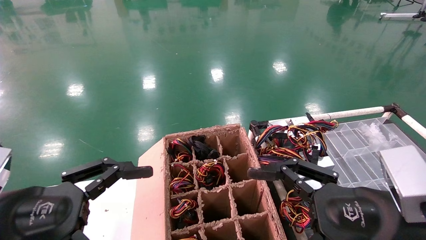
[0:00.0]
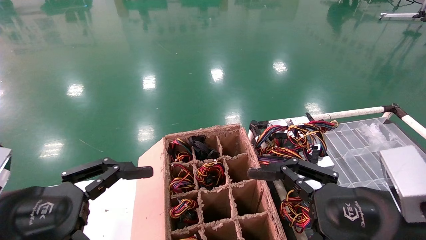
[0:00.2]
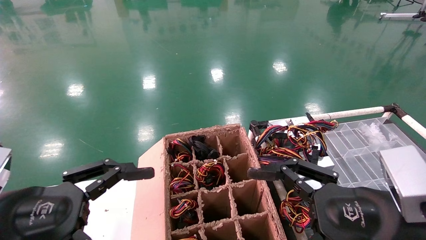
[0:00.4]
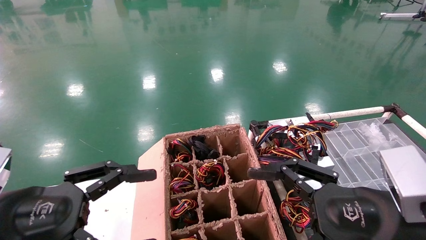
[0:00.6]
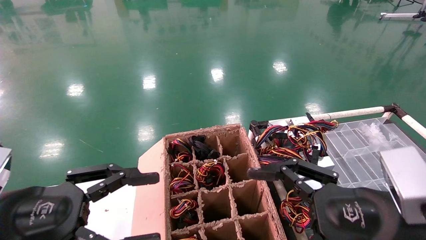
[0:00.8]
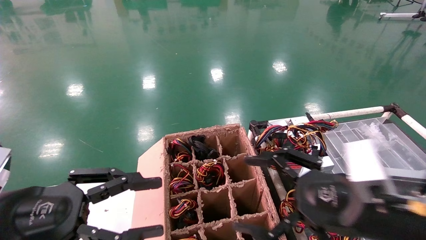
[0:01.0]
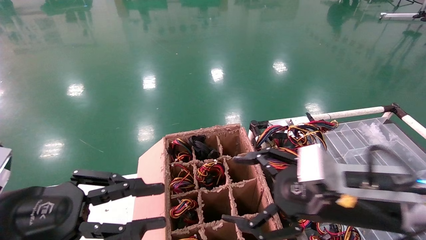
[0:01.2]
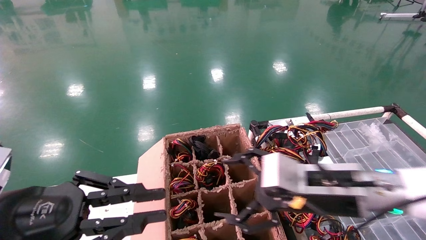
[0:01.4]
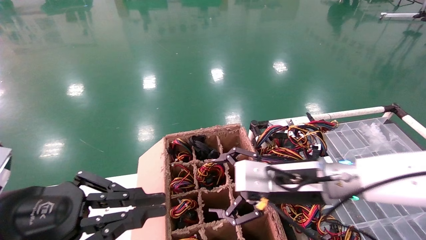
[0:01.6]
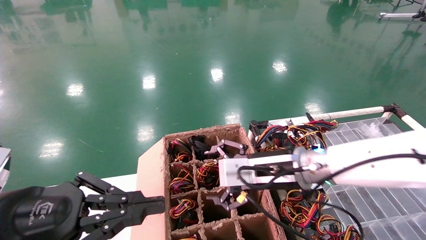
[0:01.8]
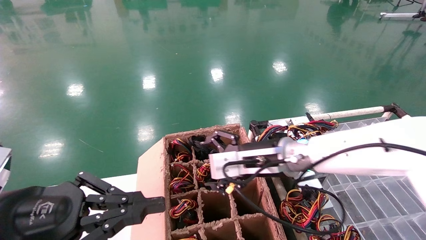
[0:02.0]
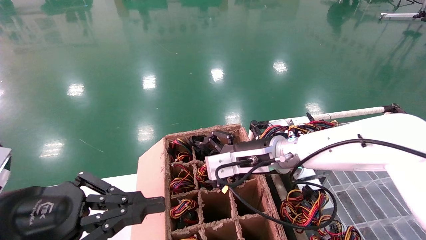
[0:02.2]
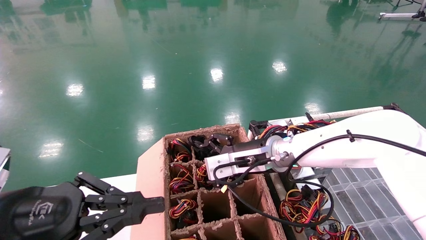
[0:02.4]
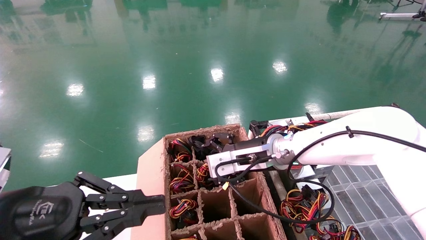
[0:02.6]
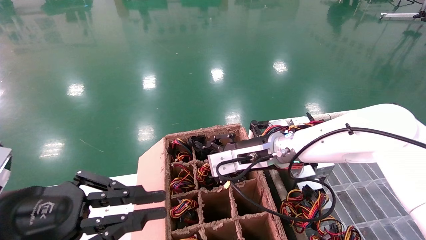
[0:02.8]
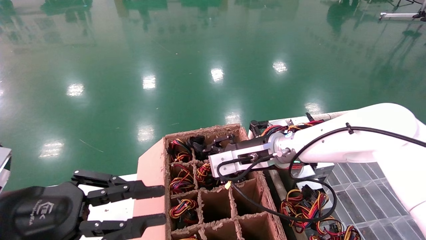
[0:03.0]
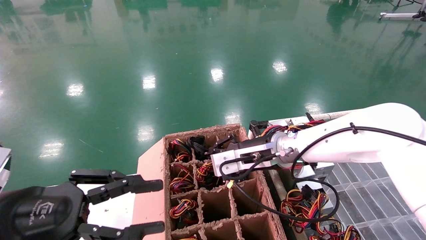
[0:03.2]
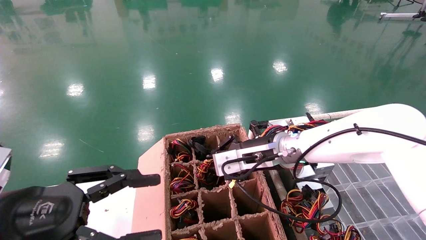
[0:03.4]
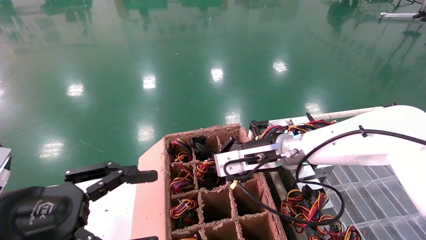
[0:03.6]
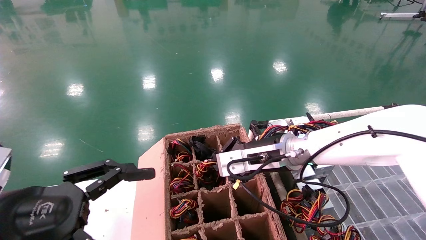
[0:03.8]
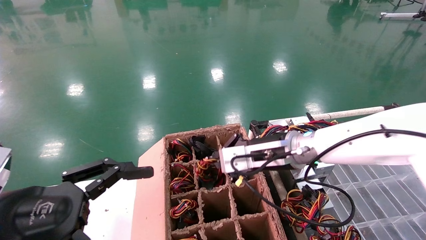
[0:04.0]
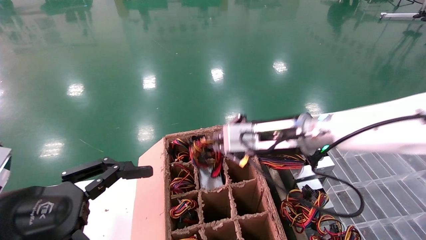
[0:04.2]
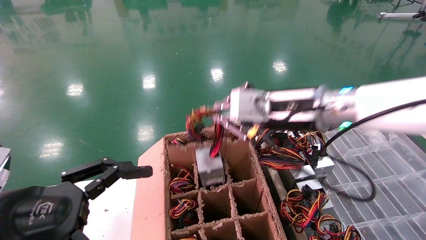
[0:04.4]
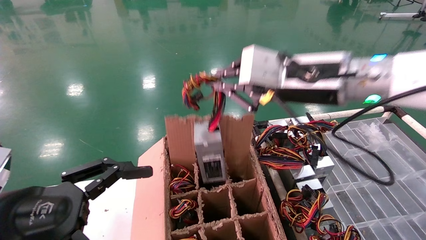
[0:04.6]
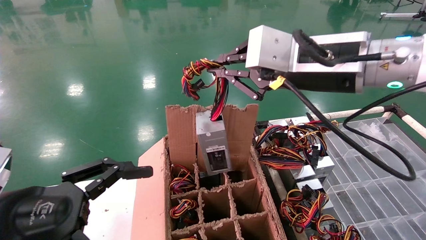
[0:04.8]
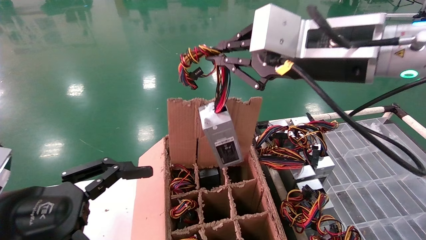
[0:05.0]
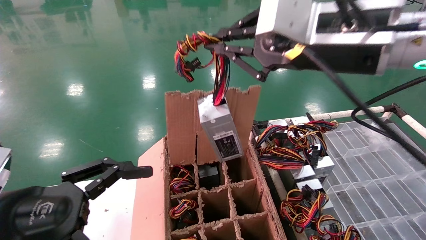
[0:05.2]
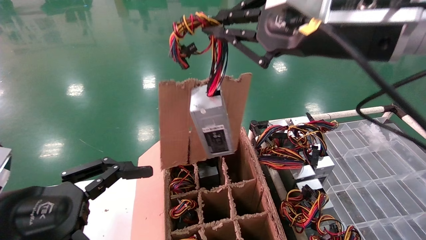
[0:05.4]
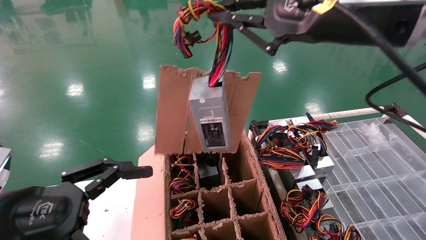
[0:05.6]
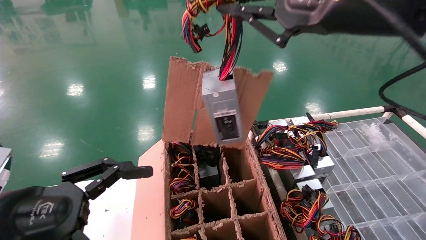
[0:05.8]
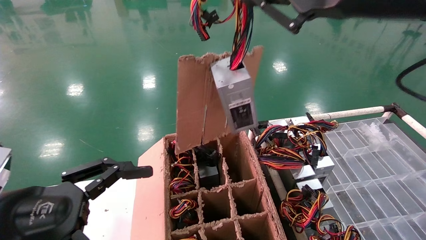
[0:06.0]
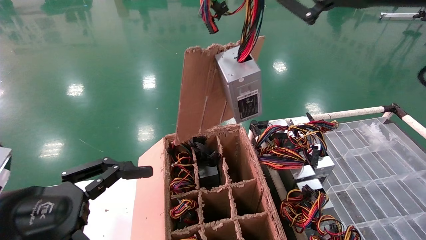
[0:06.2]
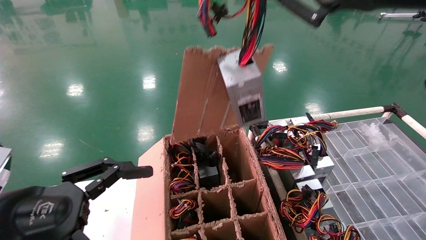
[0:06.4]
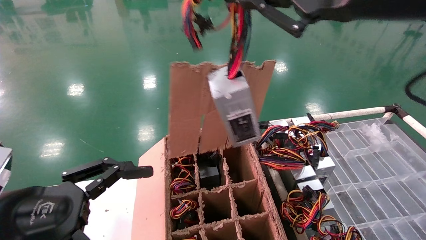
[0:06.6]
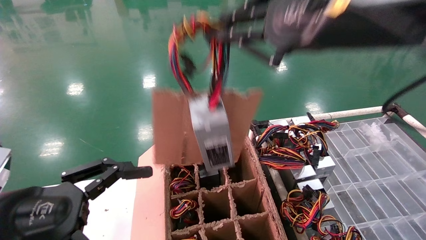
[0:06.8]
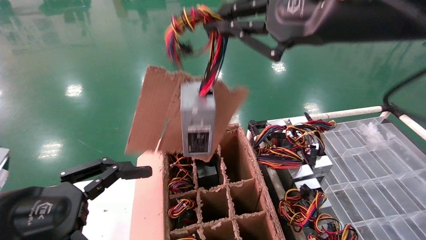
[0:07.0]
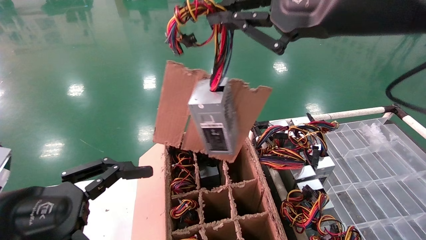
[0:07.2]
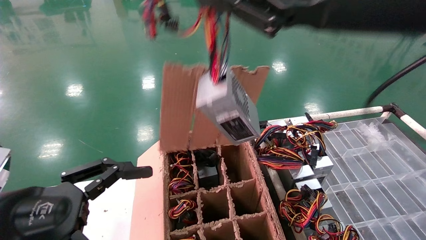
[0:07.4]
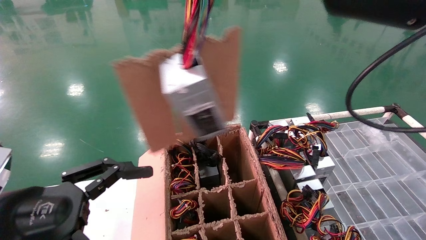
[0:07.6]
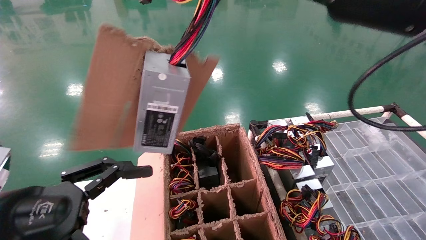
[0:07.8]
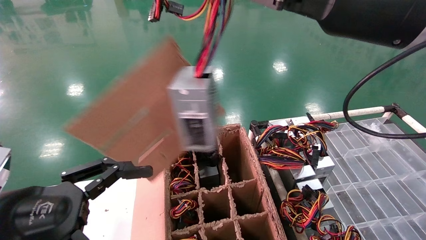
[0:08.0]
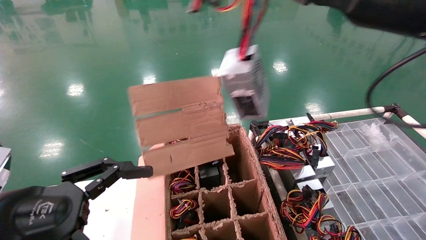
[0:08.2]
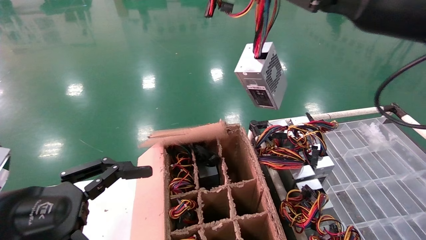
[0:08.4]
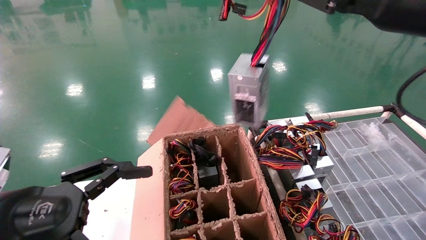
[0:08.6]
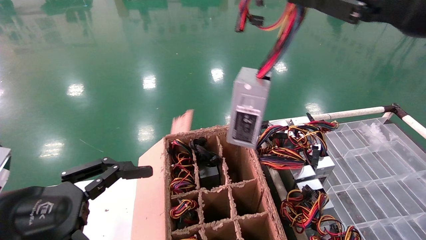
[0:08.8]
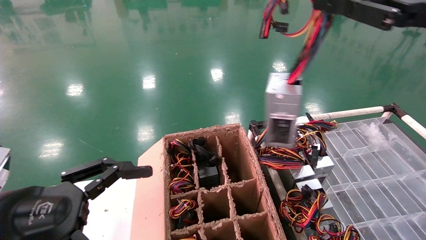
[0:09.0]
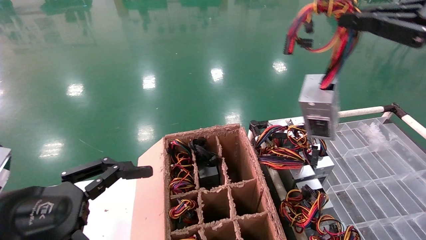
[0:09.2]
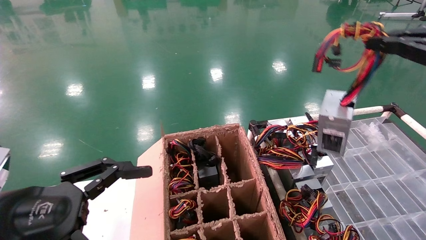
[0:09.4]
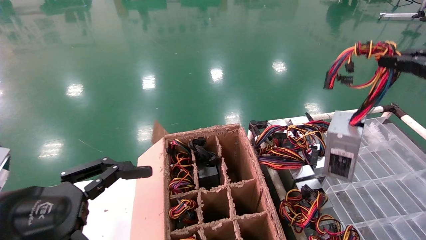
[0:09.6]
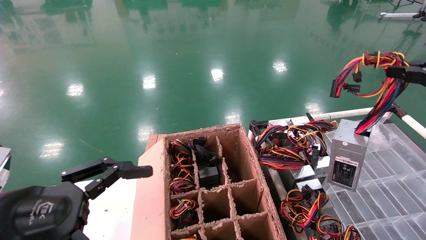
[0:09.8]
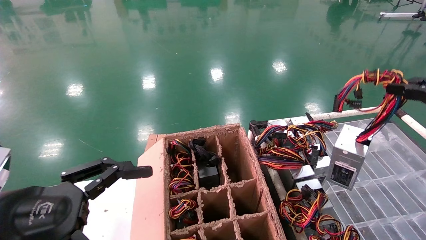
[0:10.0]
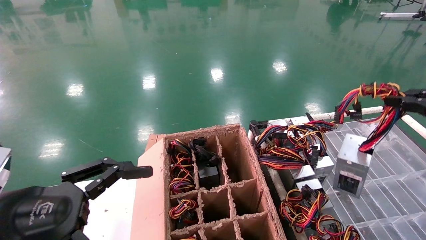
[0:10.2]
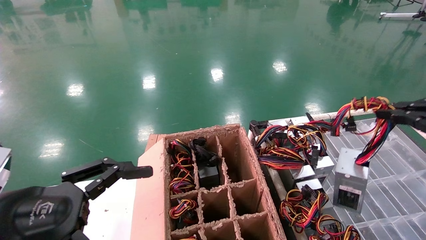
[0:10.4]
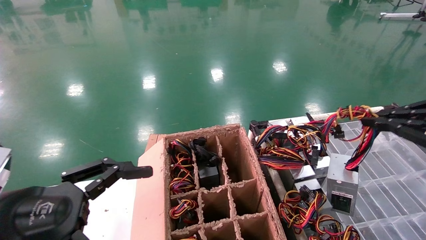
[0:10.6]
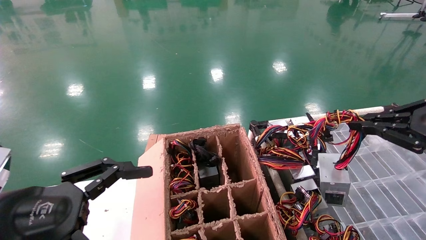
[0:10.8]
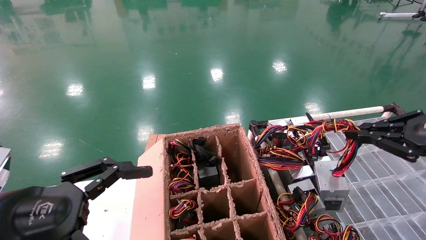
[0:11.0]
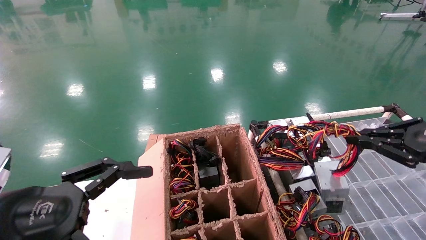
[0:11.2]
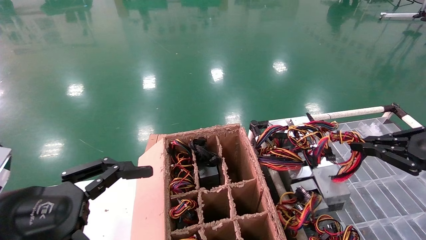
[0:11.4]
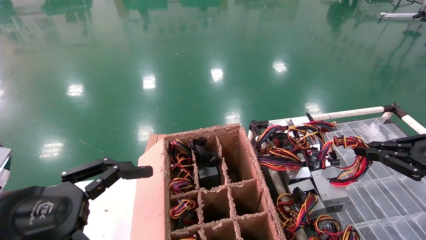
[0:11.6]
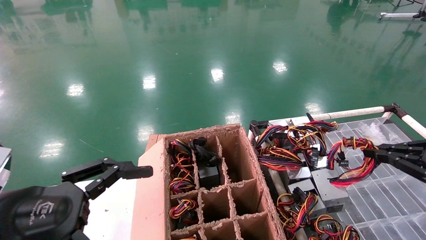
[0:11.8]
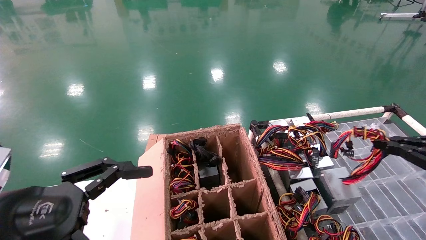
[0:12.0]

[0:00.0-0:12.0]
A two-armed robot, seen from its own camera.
Step, 0:01.8 to 0:03.8: Grab and lift the power supply from the large box.
0:00.0 to 0:01.6: The left gripper closes up; the right gripper is displaced forward and to the left by approximately 15 cm.
0:01.6 to 0:03.0: The right gripper travels forward by roughly 10 cm.
0:03.0 to 0:04.4: The left gripper opens. Meanwhile the right gripper shifts roughly 15 cm upward and backward, and closes its fingers.
0:04.4 to 0:06.0: The right gripper moves upward and backward, roughly 20 cm.
0:07.6 to 0:09.0: The right gripper heads to the right, covering about 15 cm.
0:09.0 to 0:10.4: The right gripper moves to the right and downward, about 15 cm.
0:10.4 to 0:12.0: The right gripper heads downward, covering approximately 10 cm.

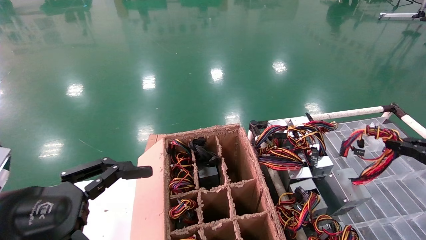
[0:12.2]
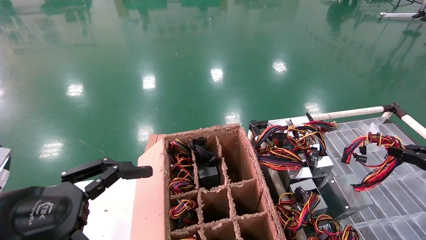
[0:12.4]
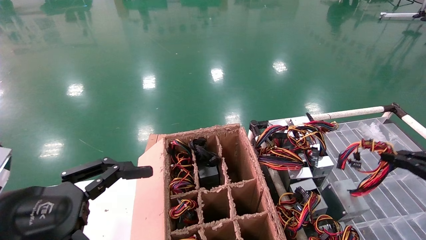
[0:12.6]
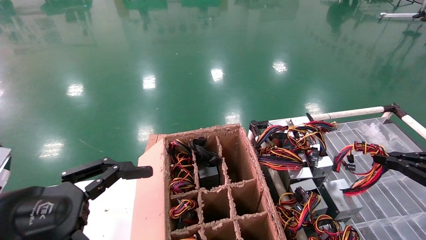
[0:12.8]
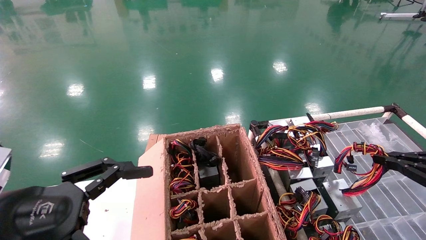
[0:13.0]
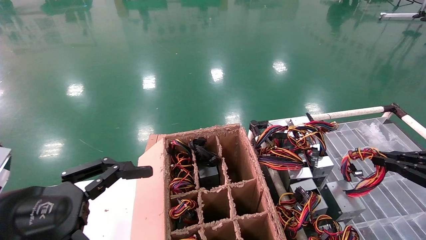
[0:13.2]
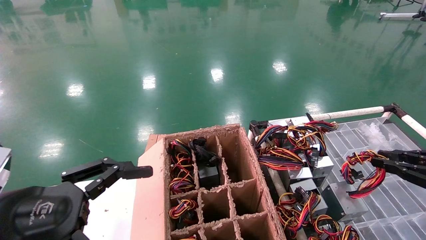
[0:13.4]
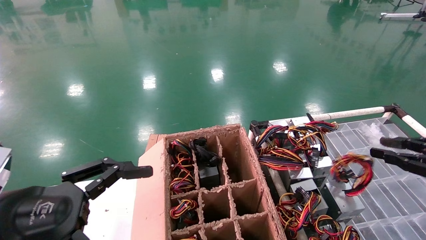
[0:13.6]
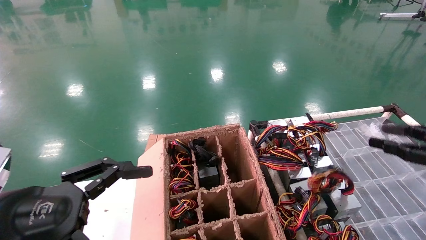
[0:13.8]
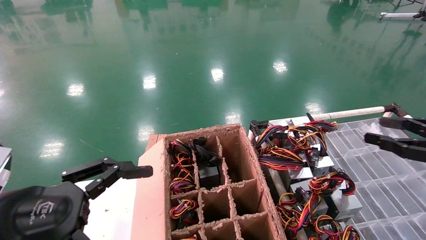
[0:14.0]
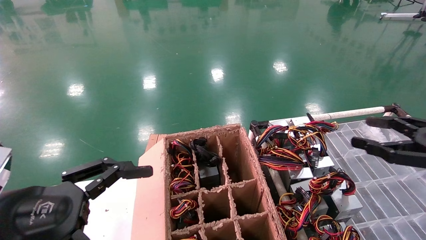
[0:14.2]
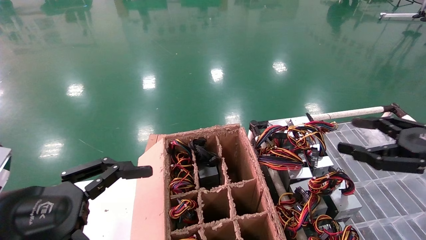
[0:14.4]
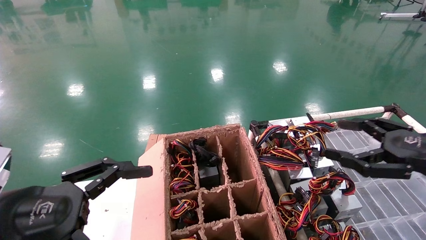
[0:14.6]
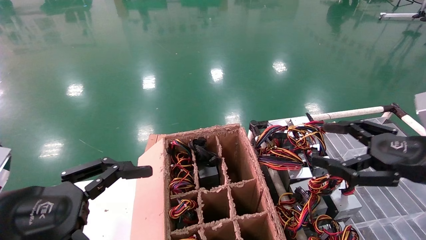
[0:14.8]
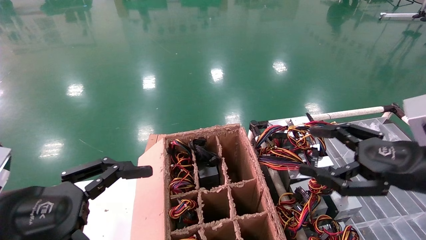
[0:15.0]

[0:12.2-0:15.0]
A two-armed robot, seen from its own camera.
0:12.2 to 0:13.6: The grippers stay close to where they were, moving slightly.
0:13.6 to 0:15.0: The right gripper heads to the left, covering roughly 15 cm, and opens its fingers.
